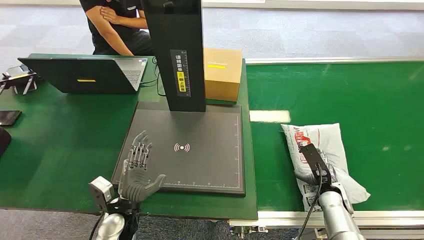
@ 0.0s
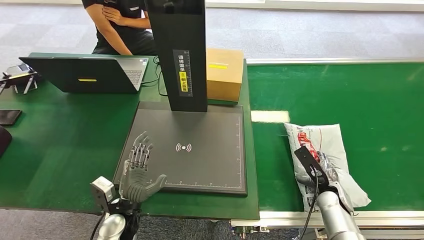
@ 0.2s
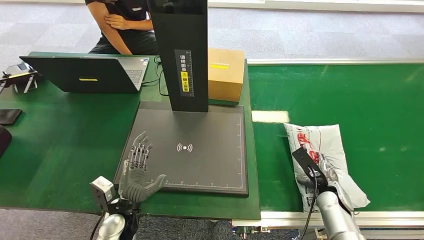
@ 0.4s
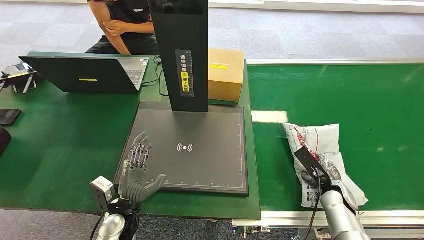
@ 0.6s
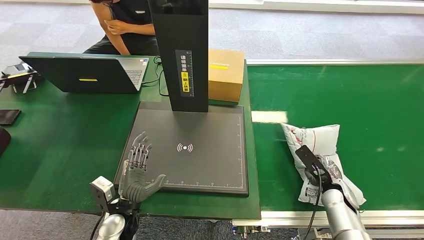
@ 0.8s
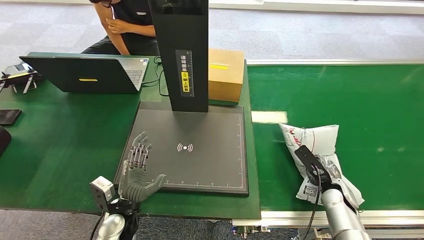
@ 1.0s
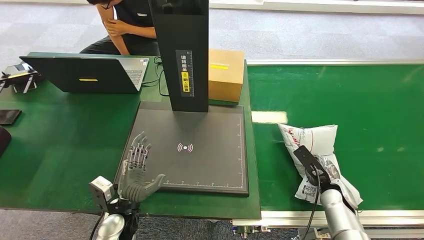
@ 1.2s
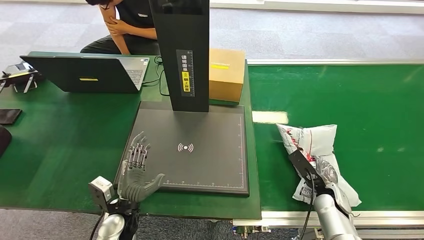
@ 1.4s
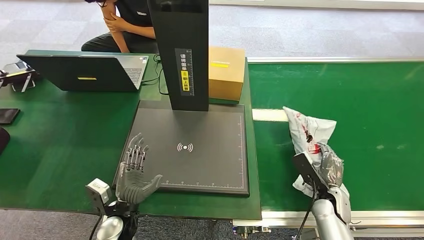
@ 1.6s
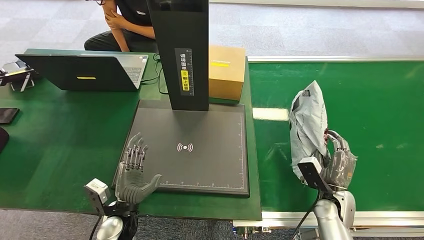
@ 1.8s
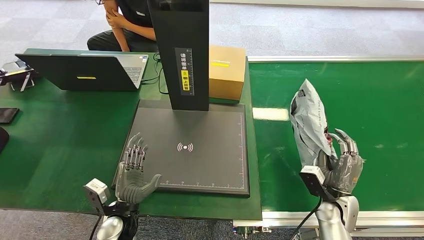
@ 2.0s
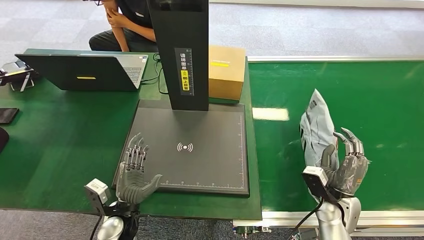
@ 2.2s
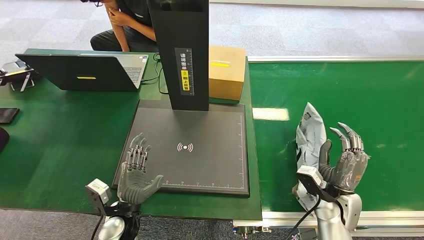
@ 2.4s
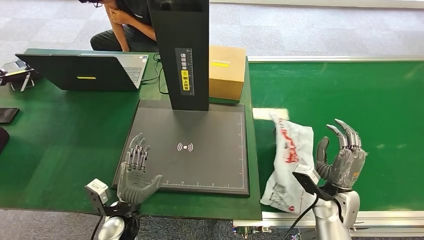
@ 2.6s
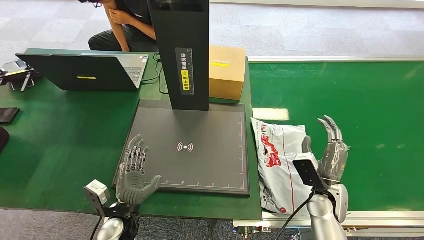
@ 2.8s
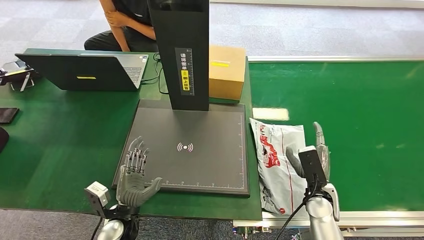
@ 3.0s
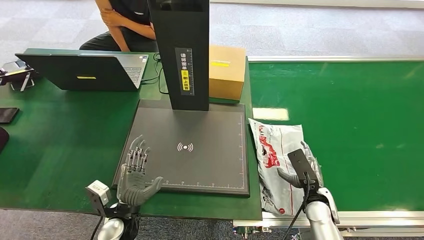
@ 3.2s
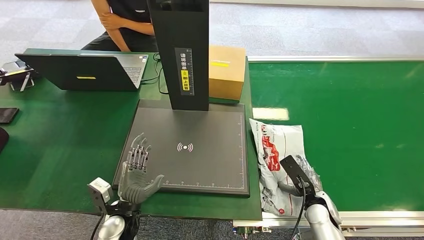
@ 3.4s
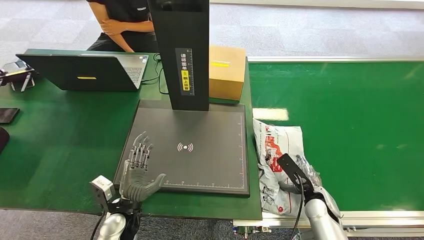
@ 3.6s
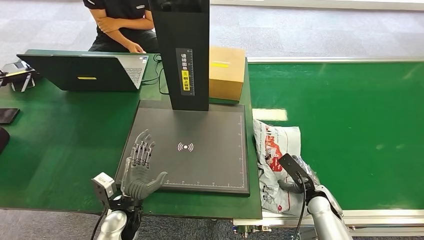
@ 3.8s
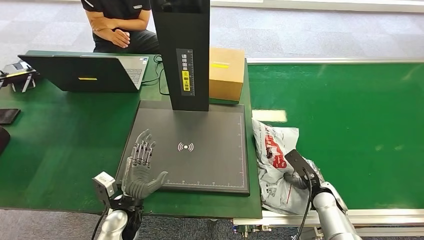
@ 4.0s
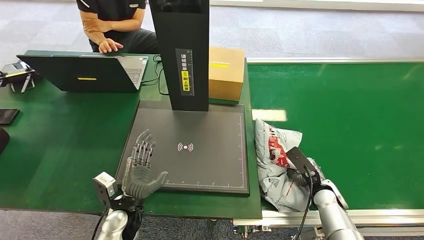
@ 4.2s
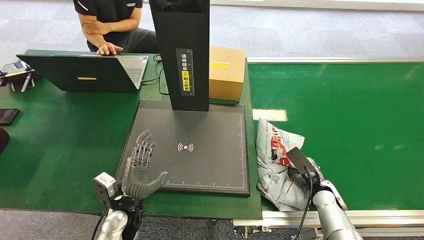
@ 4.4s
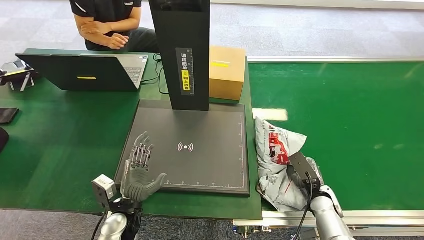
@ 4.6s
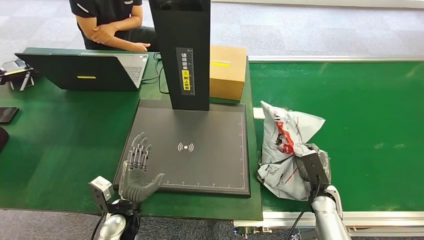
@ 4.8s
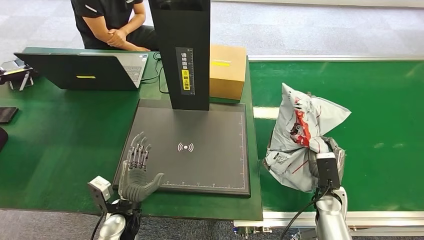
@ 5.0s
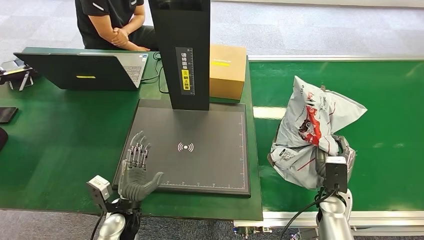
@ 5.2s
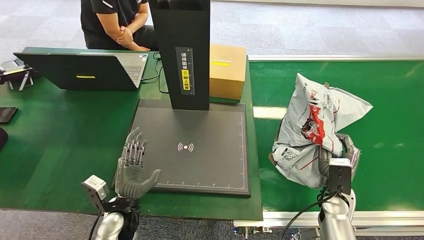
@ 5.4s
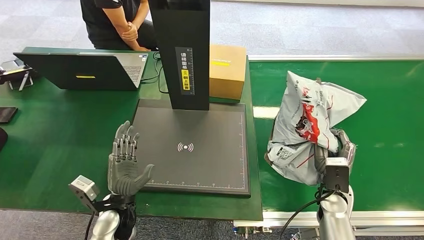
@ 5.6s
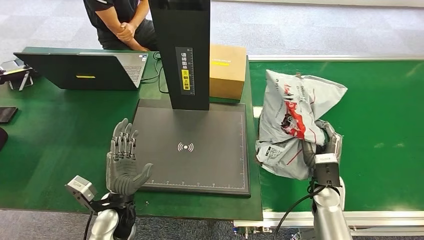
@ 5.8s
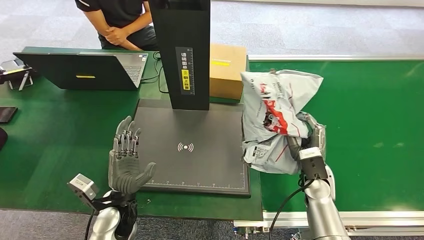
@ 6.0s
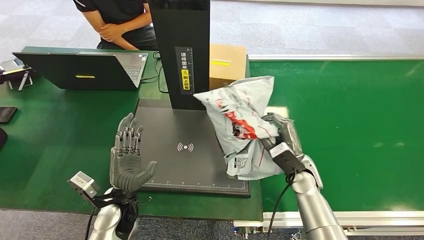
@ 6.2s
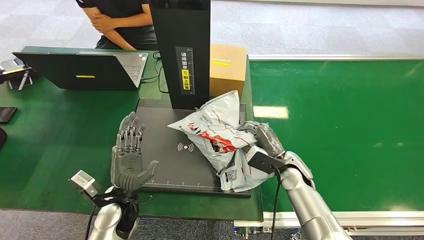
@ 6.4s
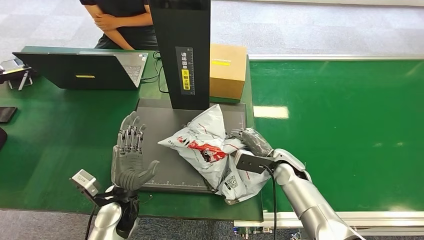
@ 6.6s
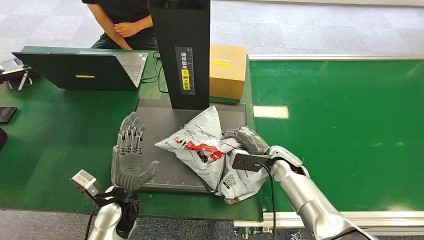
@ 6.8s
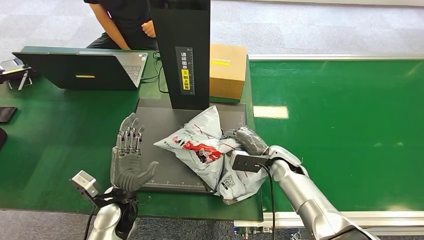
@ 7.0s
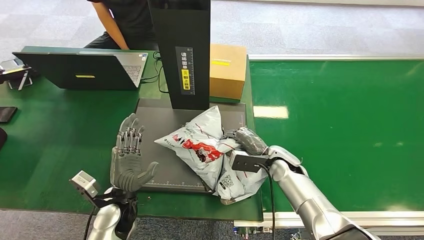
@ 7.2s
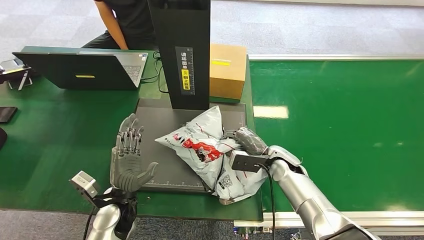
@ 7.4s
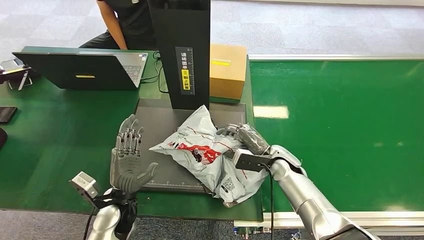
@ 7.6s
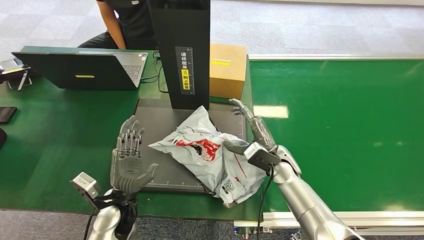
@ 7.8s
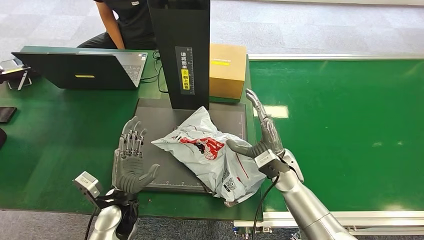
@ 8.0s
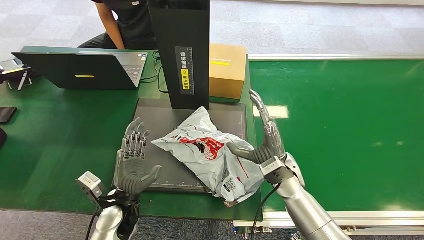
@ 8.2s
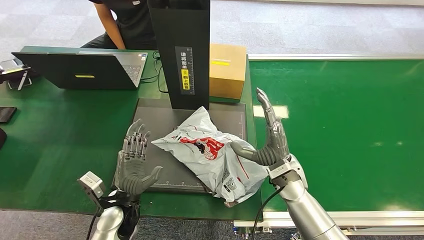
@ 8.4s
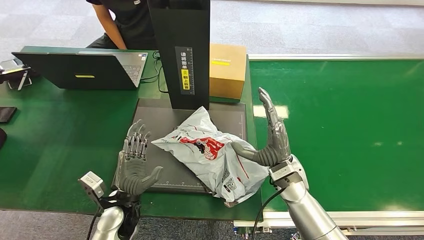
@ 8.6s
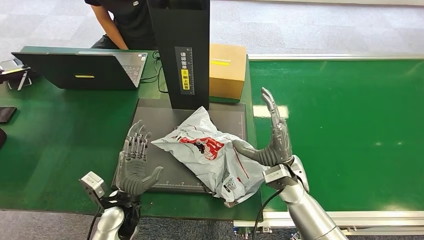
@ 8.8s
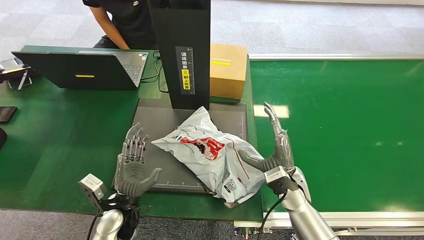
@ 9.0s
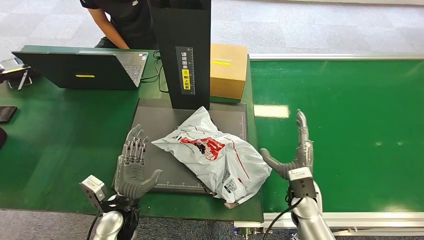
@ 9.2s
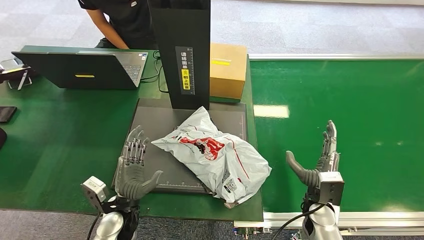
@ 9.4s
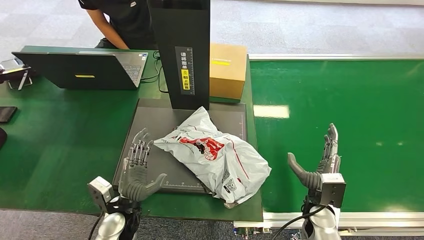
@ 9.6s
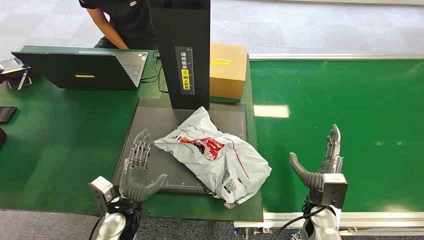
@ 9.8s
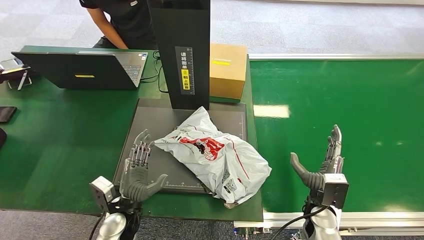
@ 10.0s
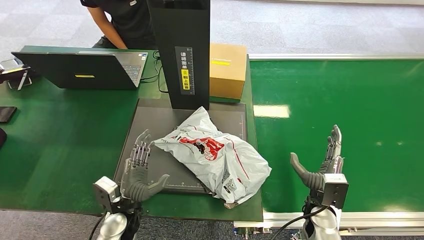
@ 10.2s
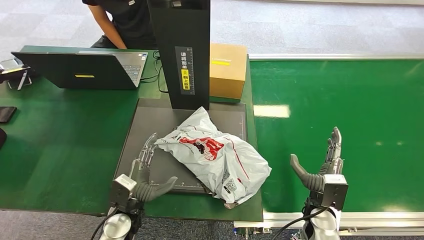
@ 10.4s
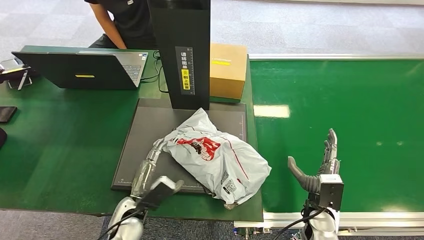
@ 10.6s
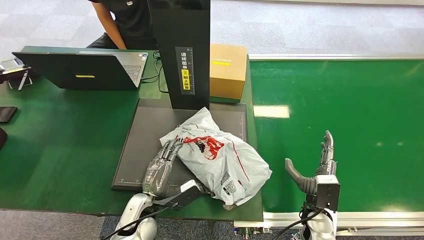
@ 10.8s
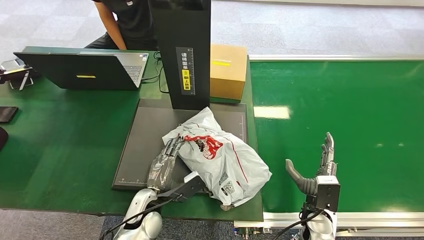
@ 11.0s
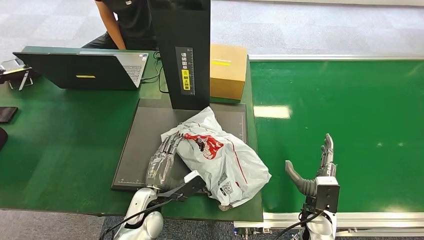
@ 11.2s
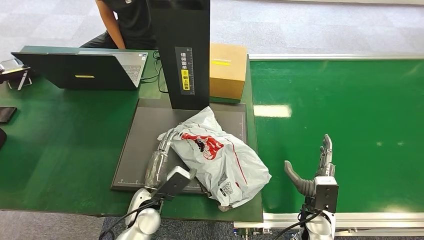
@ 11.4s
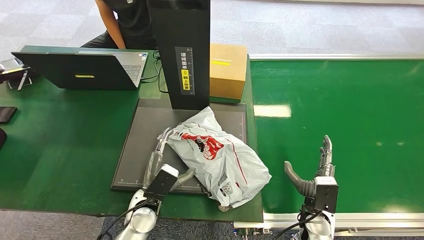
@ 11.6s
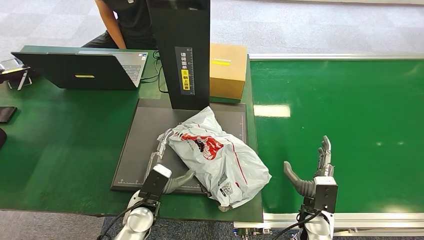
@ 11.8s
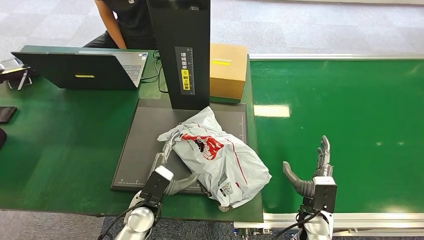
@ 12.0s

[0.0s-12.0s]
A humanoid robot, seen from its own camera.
Task of the whole recording: Weigh the package on the weighing device and place it in the left basket.
Step, 0.0s to 5.8s: Pick up the package from the conveyor belt.
Step, 6.0s to 9.0s: Place the package onto the inbound machine.
1.6s to 3.0s: The right hand moves some 5 cm.
3.0s to 4.4s: The right hand is displaced downward by some 5 cm.
6.0s to 7.6s: The right hand shifts some 10 cm to the left and forward.
7.6s to 9.0s: The right hand shifts about 5 cm backward.
9.0s to 10.4s: The right hand goes some 10 cm to the right, backward and downward.
10.4s to 12.0s: The left hand is displaced to the right by about 5 cm.

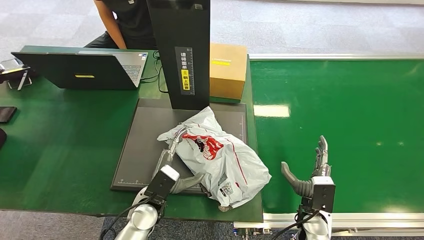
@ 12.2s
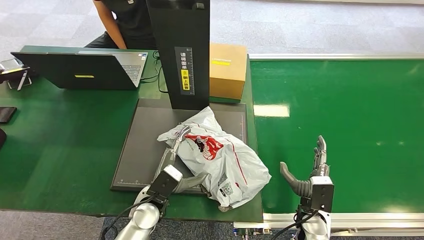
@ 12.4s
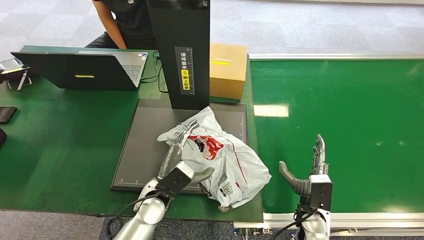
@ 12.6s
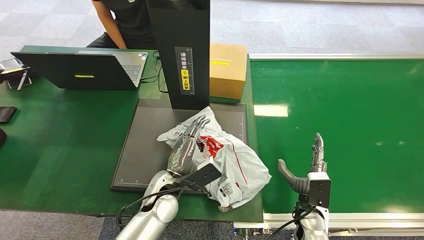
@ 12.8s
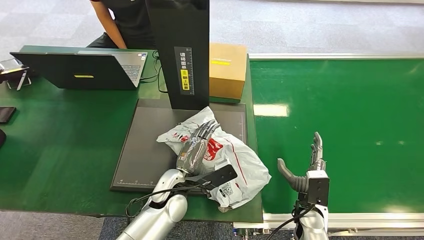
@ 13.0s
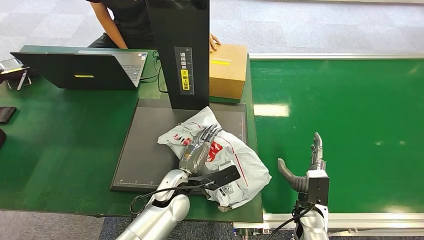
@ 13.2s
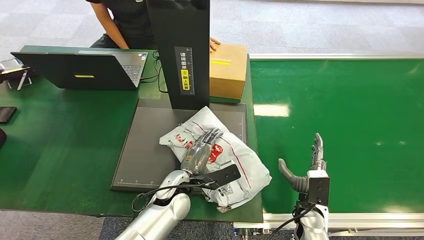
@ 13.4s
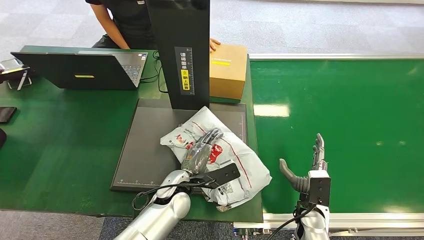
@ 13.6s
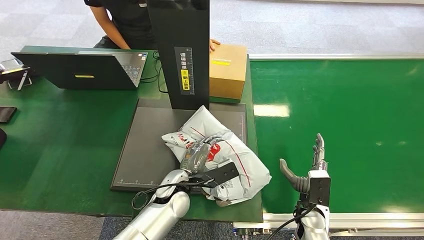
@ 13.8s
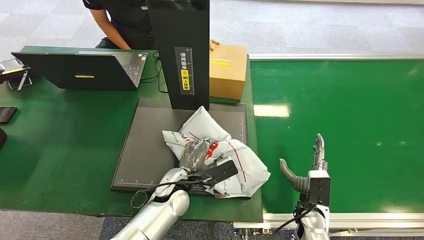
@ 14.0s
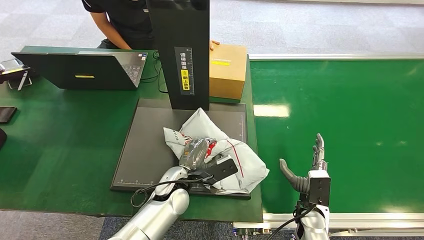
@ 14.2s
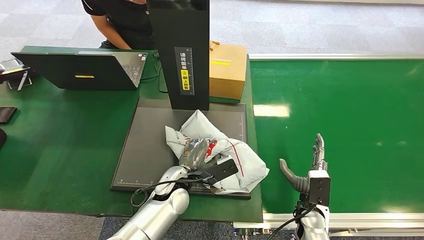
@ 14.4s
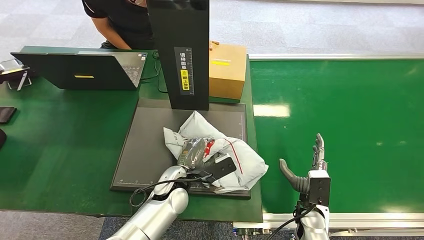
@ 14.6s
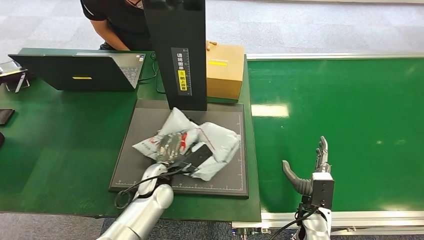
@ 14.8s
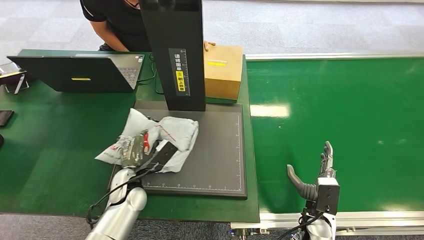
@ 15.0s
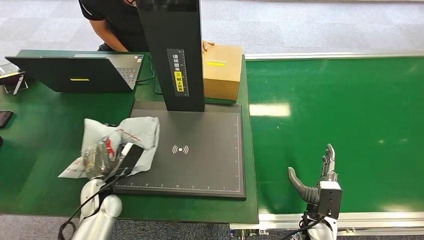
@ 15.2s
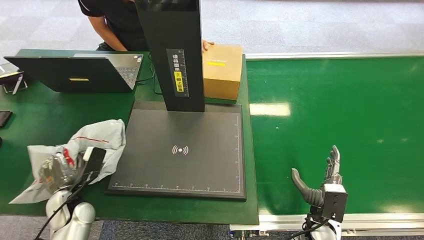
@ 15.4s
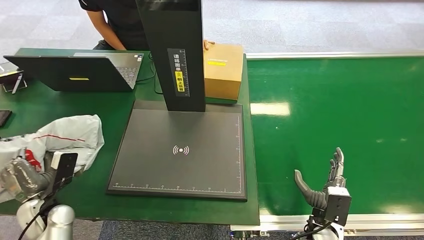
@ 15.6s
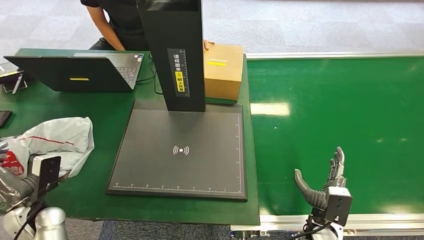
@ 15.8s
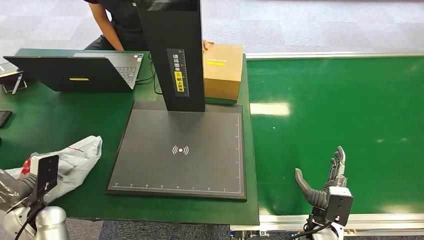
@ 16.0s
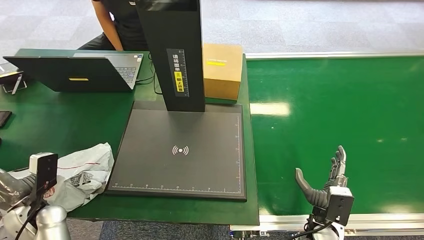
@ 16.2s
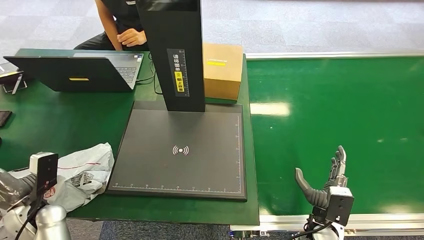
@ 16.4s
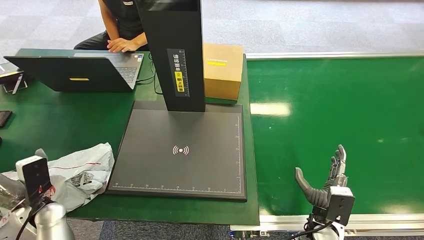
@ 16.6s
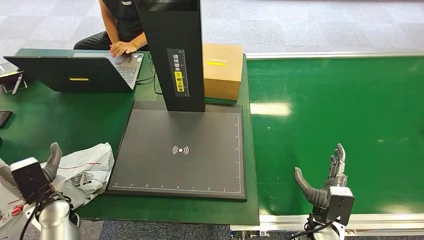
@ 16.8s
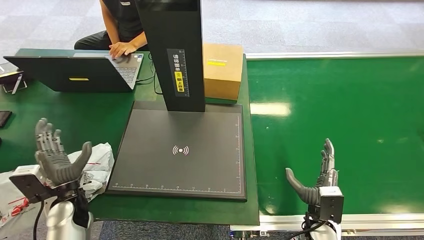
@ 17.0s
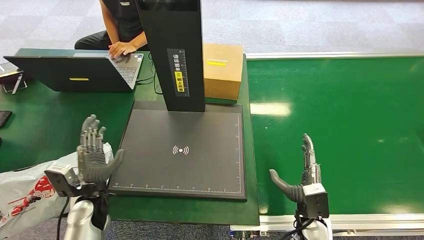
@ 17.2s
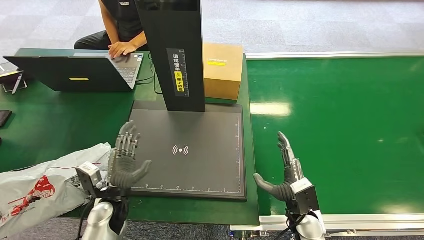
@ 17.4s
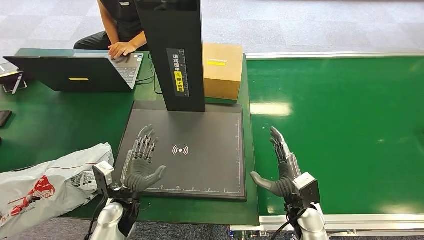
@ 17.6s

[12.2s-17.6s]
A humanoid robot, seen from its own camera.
Task of the whole recording: Weigh the package on the weighing device and place it in the left basket.
Step, 12.2s to 15.6s: Pick up the package from the inbound machine.
Step, 15.8s to 17.6s: Place the package into the parcel locker.
12.2s to 13.6s: The left hand travels to the right by about 5 cm.
16.2s to 17.6s: The right hand changes place by about 5 cm; the left hand goes roughly 20 cm to the right.
